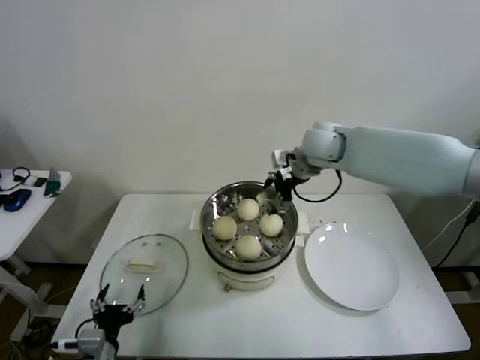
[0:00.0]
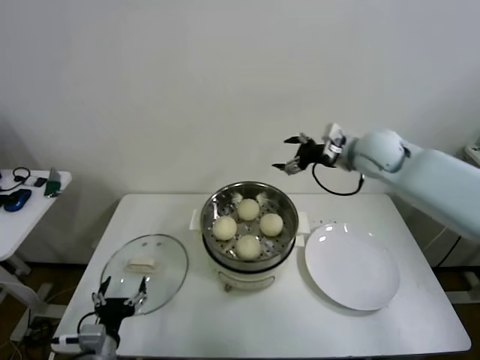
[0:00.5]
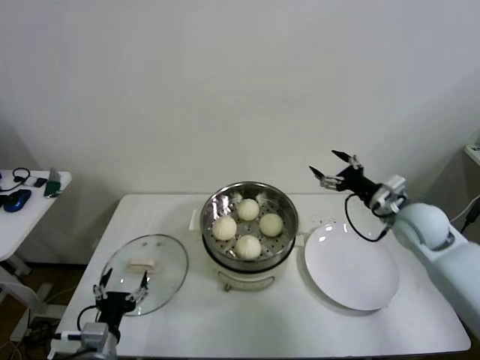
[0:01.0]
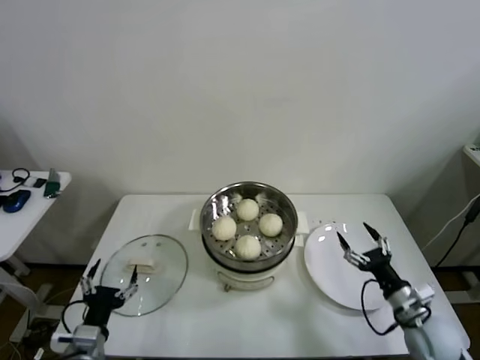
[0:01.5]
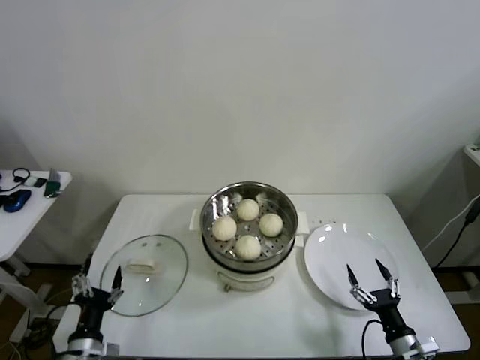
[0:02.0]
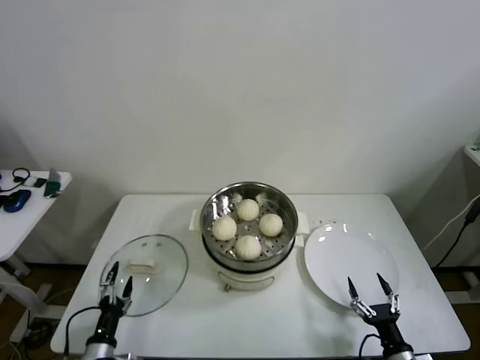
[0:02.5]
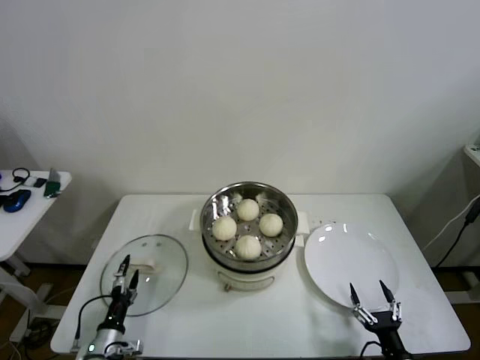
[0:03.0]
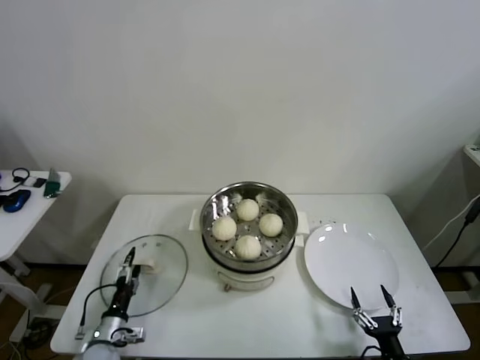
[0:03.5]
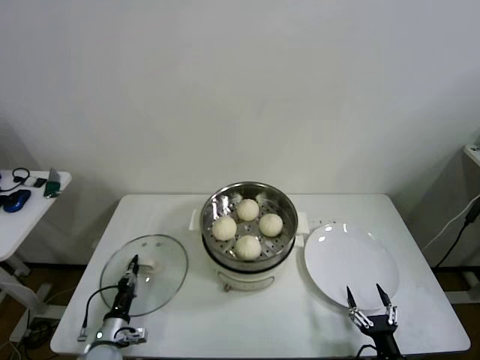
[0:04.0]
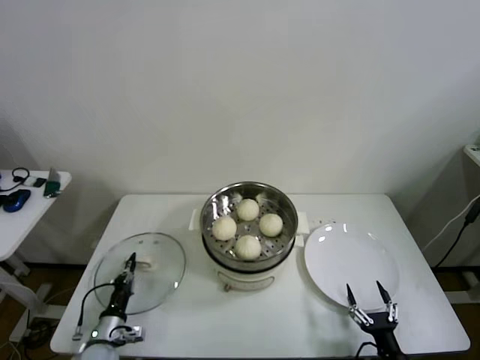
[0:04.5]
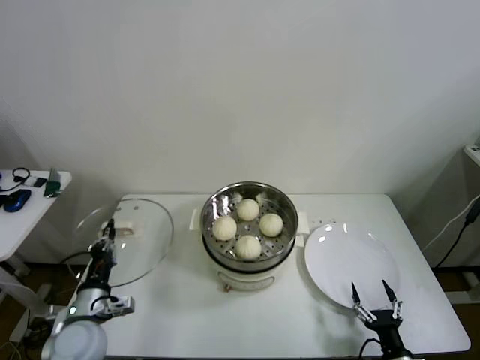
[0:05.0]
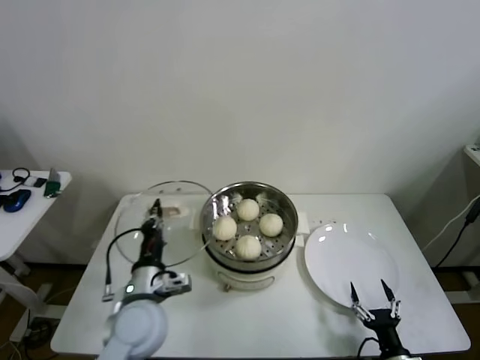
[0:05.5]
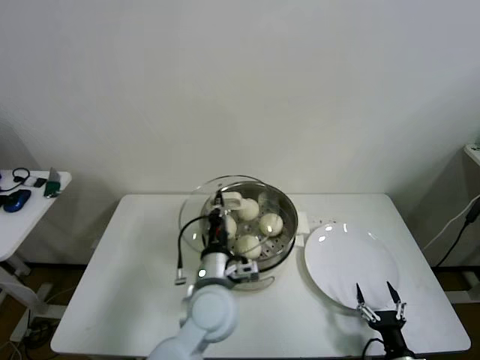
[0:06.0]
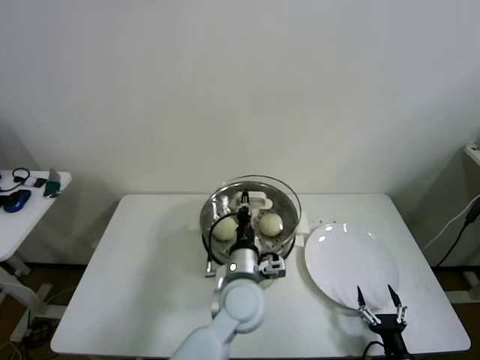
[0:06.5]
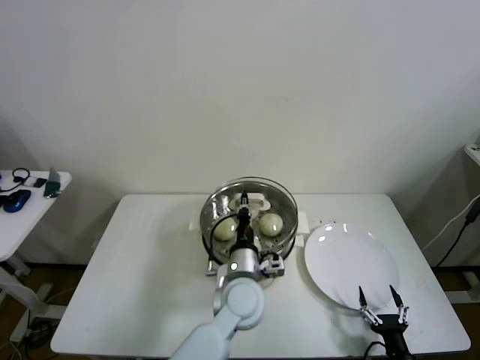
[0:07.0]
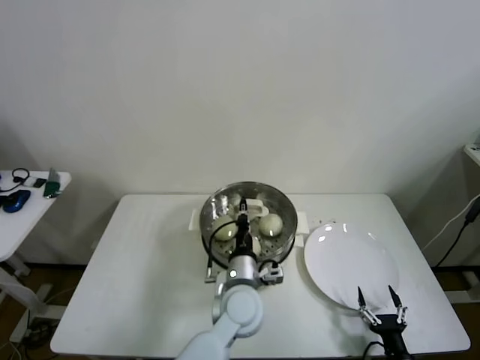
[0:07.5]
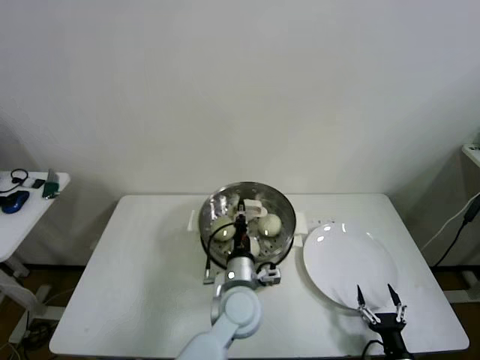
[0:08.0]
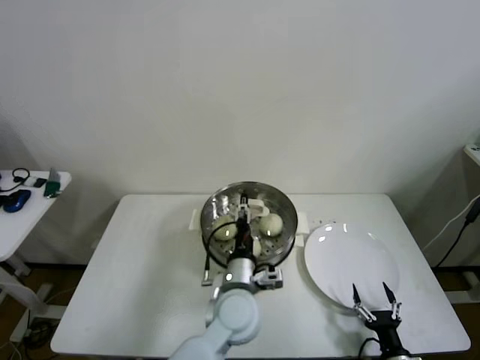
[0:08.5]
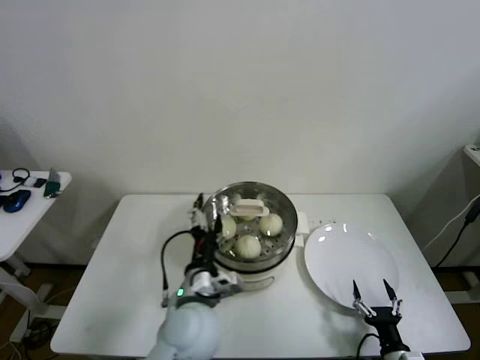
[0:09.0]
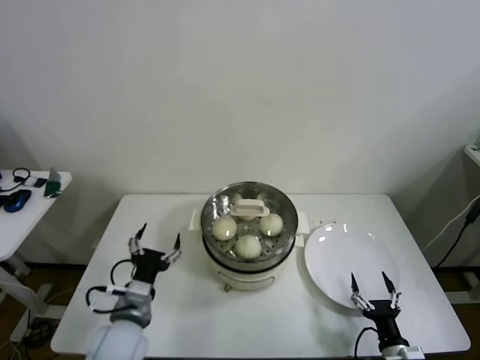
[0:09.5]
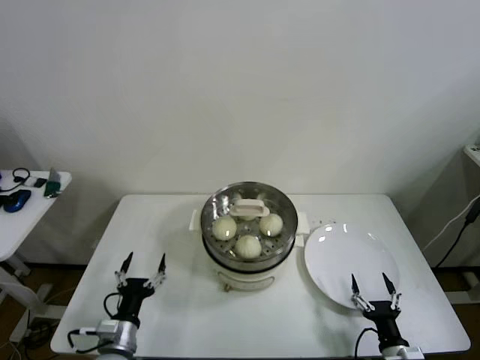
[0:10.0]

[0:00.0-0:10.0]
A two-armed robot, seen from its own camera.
Step, 0.0 to 4.0 s: Grasp the pot lid with left gripper.
Step, 4.5 to 8.0 s: Place the pot lid on the steamer with left gripper.
0.0 to 2.0 s: The right gripper goes approximately 60 cm backward, downward and to the right.
2.0 to 4.0 s: The right gripper changes place by about 5 cm, while the left gripper travels downward and forward by some 15 cm, and closes its fingers.
4.0 to 6.0 s: The left gripper travels to the right and upward by about 35 cm.
6.0 to 8.0 s: The left gripper is displaced to the right and downward by approximately 10 cm.
8.0 to 10.0 s: The left gripper is displaced to the left by some 25 cm, and opens up.

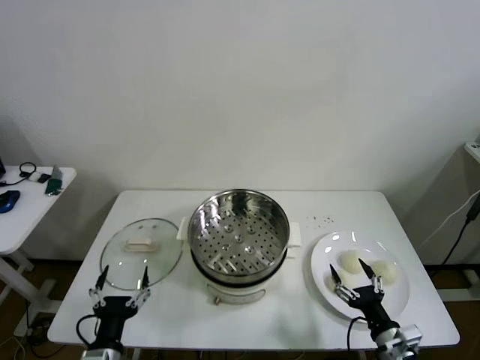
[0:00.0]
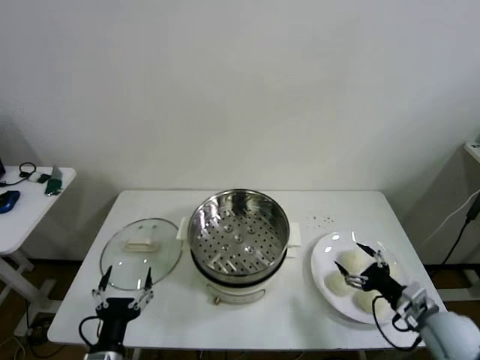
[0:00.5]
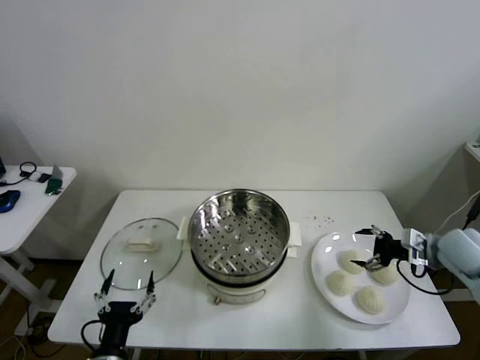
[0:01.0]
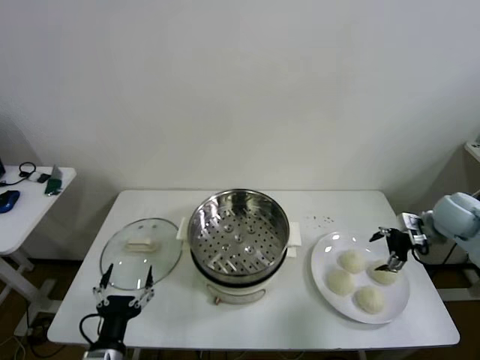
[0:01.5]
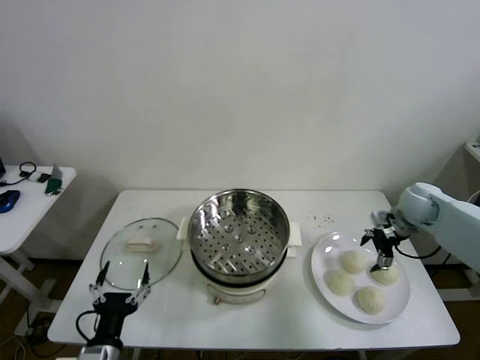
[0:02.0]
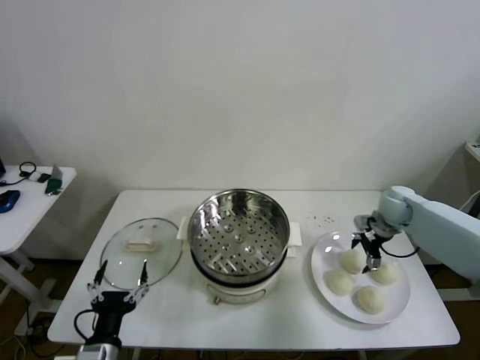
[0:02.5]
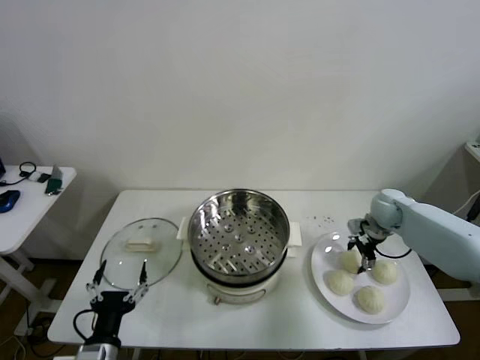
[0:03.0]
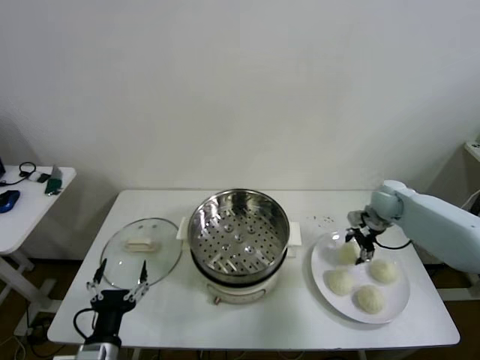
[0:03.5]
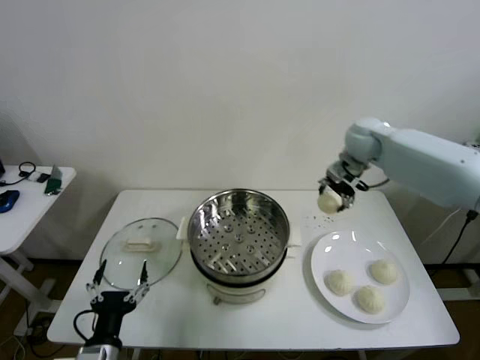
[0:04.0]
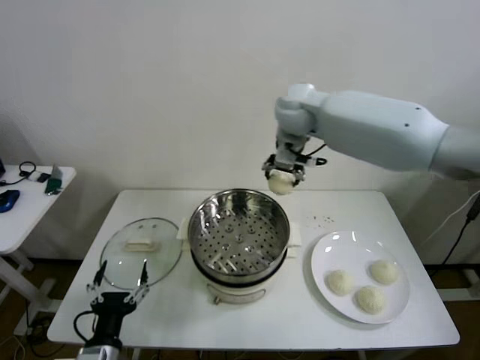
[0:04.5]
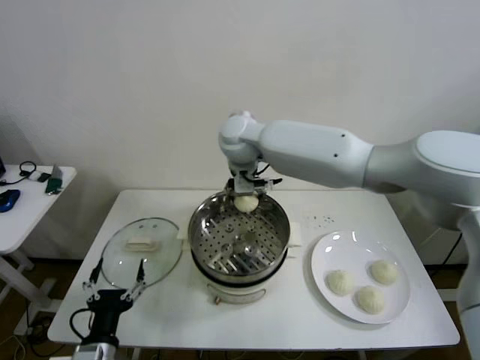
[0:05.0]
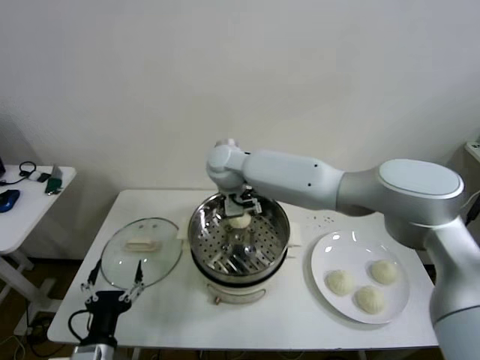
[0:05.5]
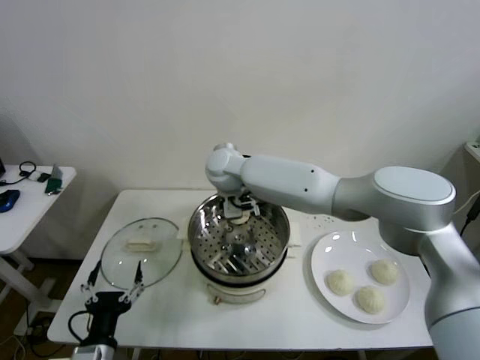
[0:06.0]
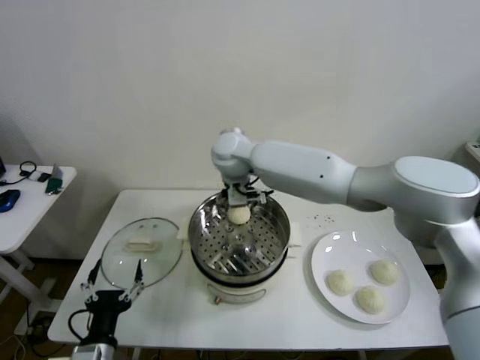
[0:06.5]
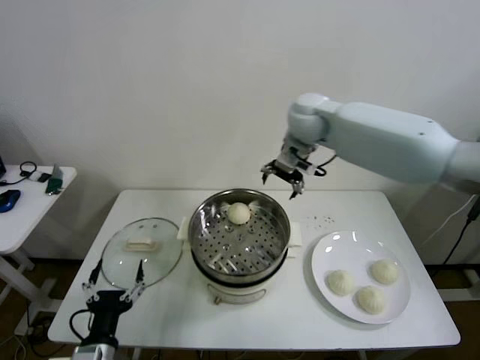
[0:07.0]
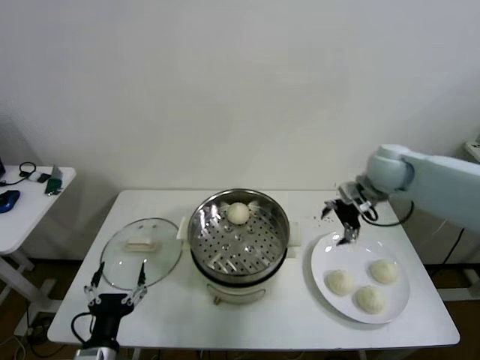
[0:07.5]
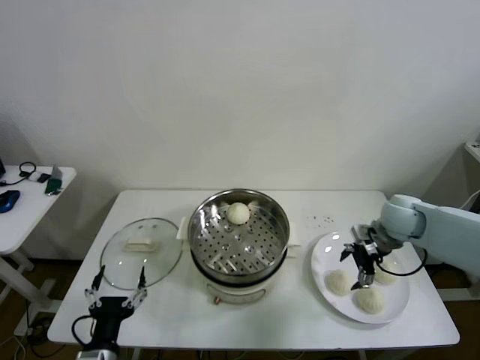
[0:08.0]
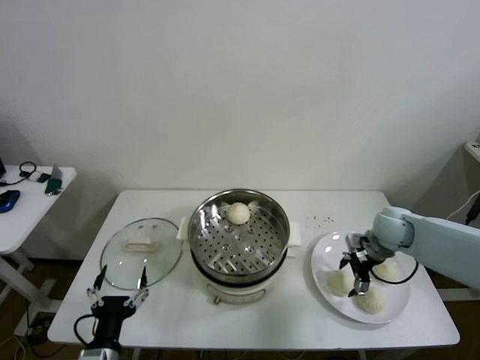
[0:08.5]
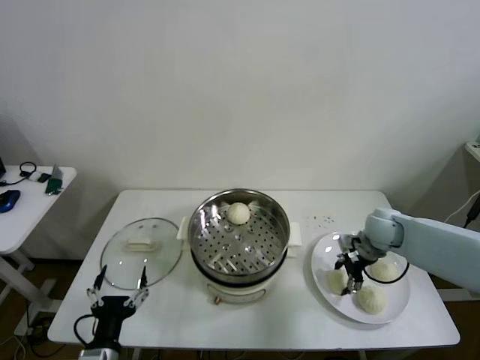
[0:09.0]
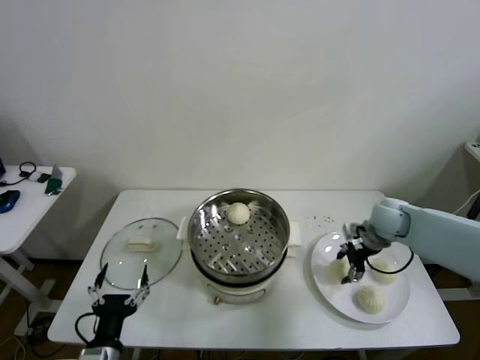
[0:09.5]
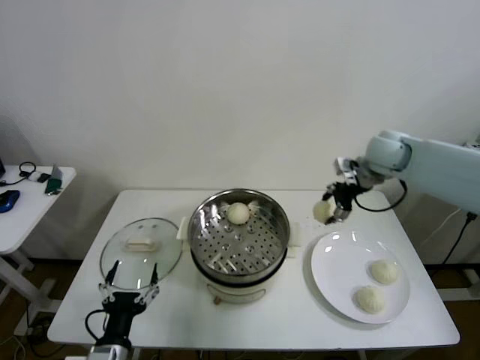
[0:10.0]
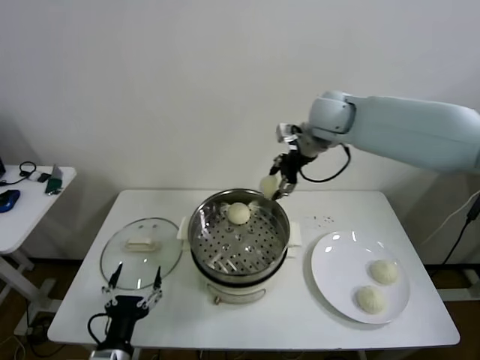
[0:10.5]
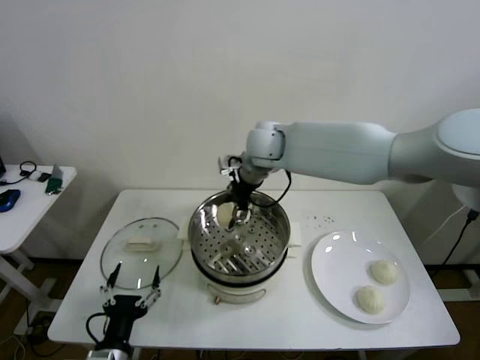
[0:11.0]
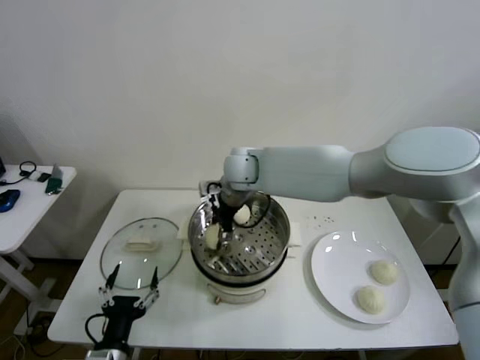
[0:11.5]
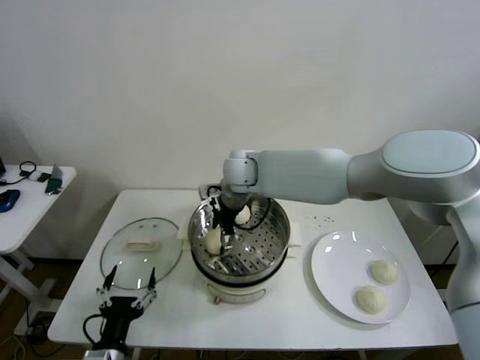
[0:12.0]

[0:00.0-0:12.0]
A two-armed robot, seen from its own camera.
Step, 0.0 to 3.0 s: Grasp the baozi in the plate with right gripper.
Step, 3.5 to 6.0 s: Place the baozi on the steamer with right gripper.
Step, 6.5 to 8.5 s: Grasp the baozi in the plate with right gripper.
Step, 9.0 to 12.0 s: Place the baozi on the steamer with right gripper.
2.0 to 4.0 s: The right gripper goes about 25 cm to the left, upward and forward, and closes its fingers.
4.0 to 6.0 s: The right gripper moves to the left, roughly 30 cm, and opens.
6.0 to 8.0 s: The right gripper heads to the right, covering about 40 cm.
8.0 to 10.0 s: The right gripper goes approximately 15 cm upward and forward, and closes its fingers.
10.0 to 12.0 s: The right gripper travels to the left by about 30 cm, and opens up.

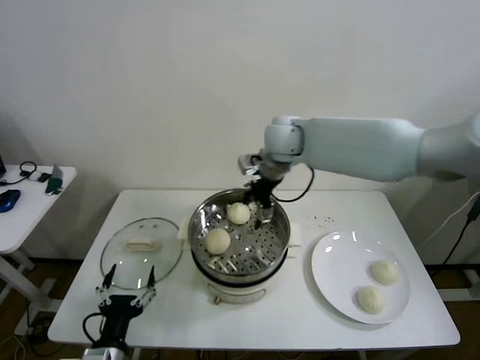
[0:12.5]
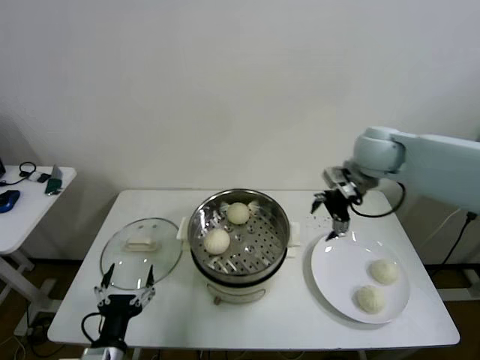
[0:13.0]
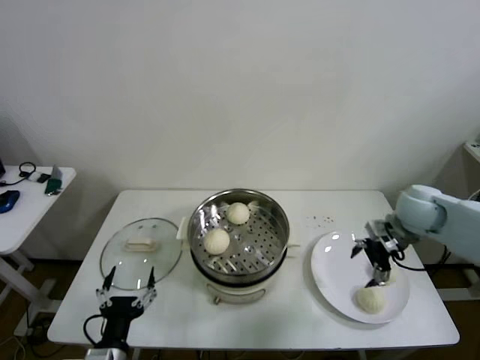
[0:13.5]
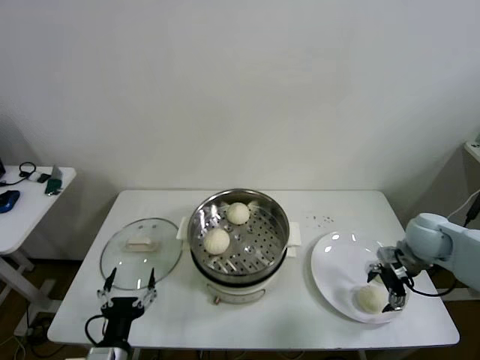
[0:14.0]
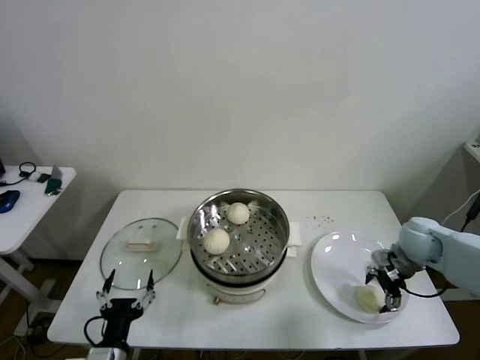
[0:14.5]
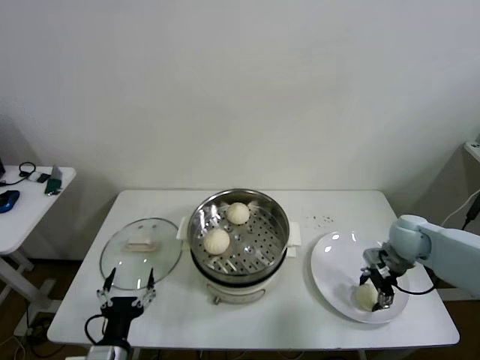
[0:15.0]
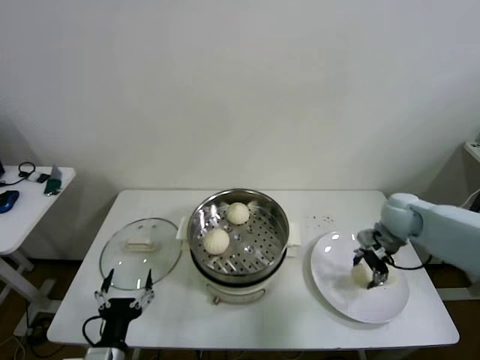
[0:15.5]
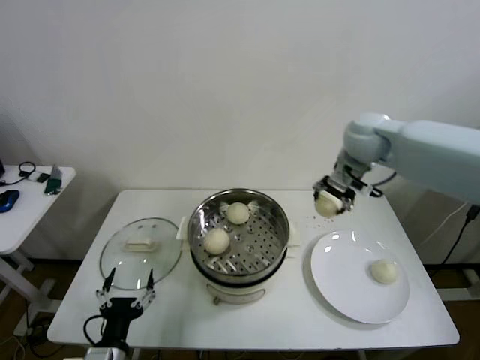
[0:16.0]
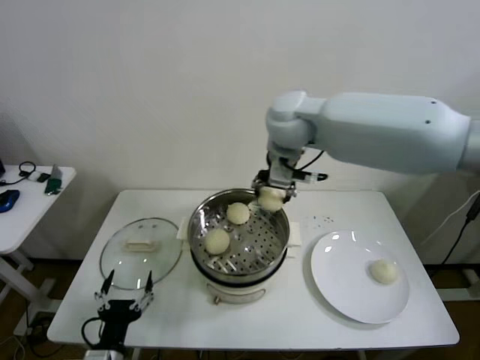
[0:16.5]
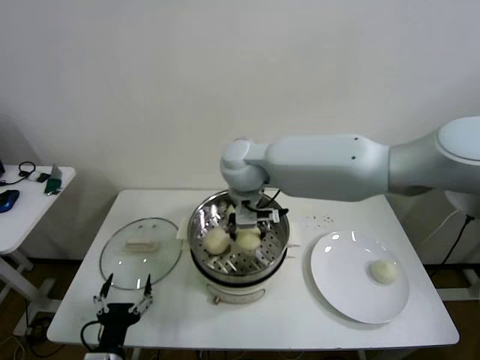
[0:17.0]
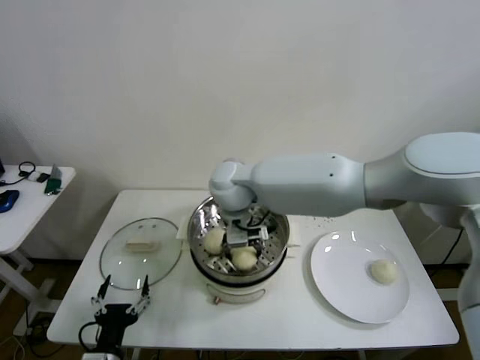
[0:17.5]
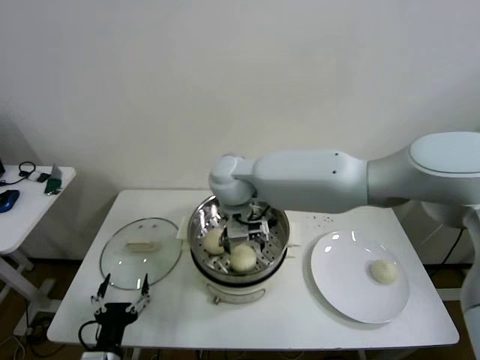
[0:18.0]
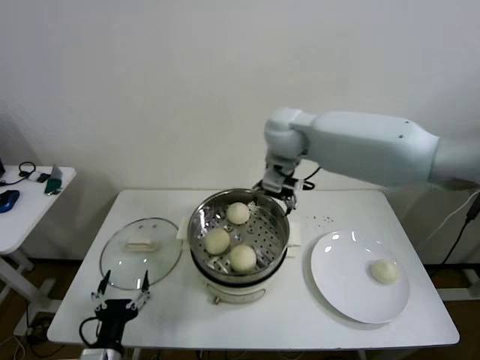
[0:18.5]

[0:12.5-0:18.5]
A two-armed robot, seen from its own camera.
Step, 12.5 to 15.0 s: Grasp the baozi in the plate with right gripper.
Step, 15.5 to 17.5 s: Place the baozi on the steamer with right gripper.
12.5 to 14.5 s: The right gripper is displaced to the right and downward by about 35 cm.
14.5 to 16.5 s: The right gripper is displaced to the left and upward by roughly 40 cm, and closes its fingers.
16.5 to 18.5 s: The right gripper moves some 10 cm downward and comes back, and opens.
